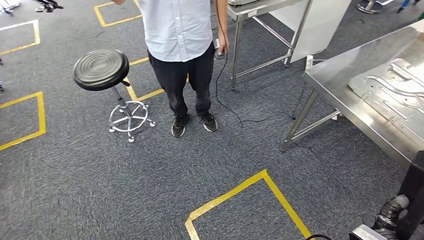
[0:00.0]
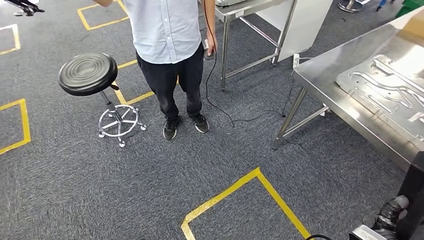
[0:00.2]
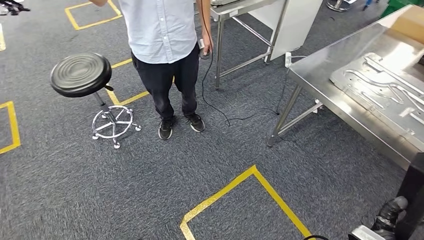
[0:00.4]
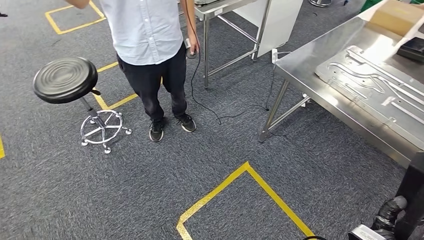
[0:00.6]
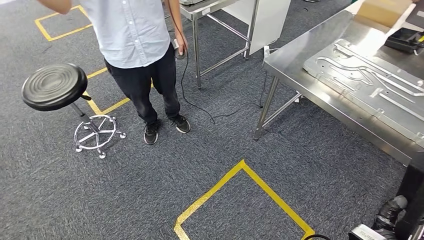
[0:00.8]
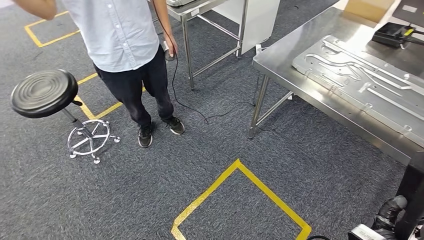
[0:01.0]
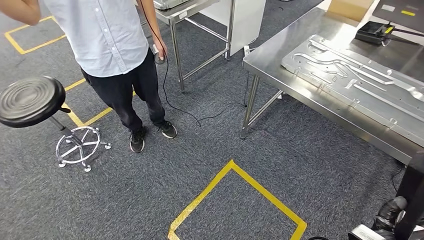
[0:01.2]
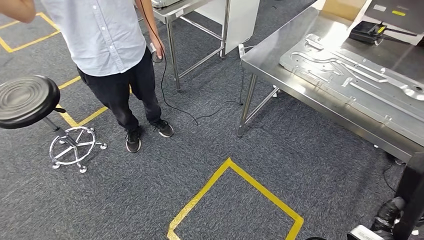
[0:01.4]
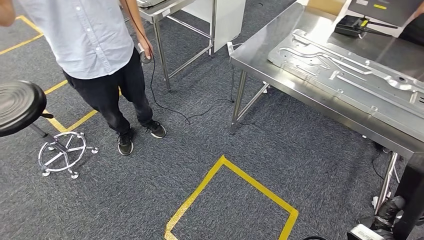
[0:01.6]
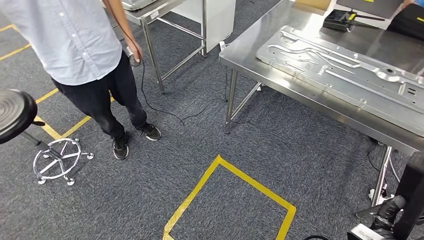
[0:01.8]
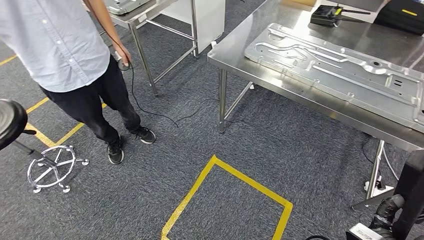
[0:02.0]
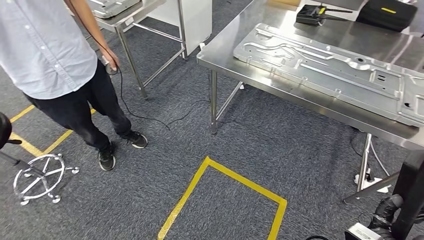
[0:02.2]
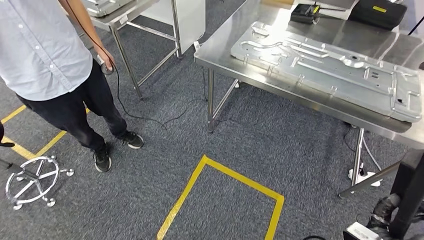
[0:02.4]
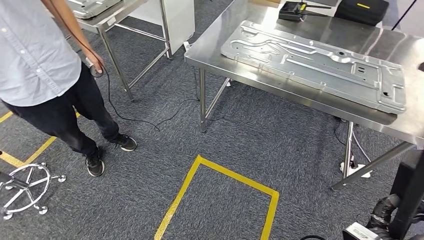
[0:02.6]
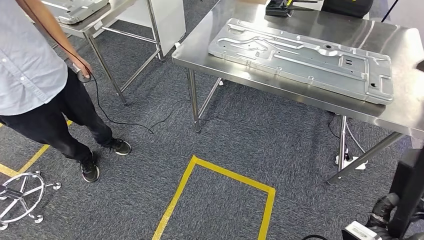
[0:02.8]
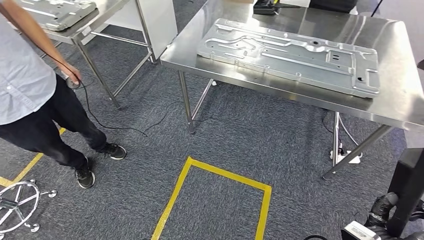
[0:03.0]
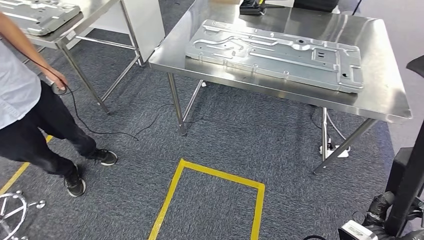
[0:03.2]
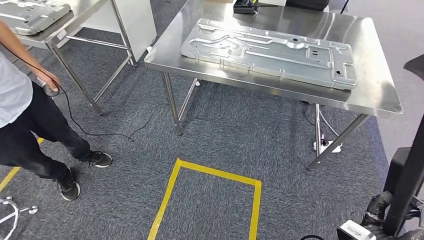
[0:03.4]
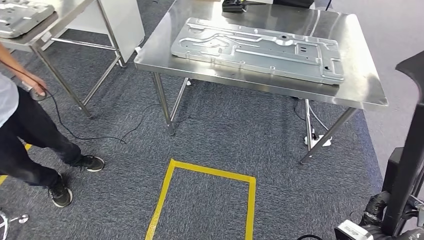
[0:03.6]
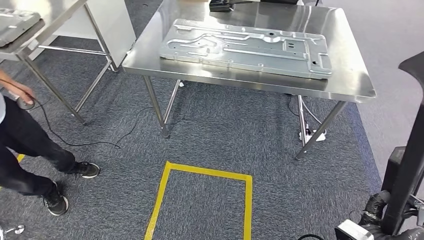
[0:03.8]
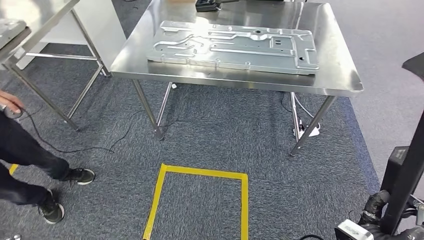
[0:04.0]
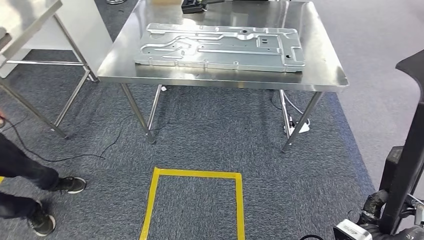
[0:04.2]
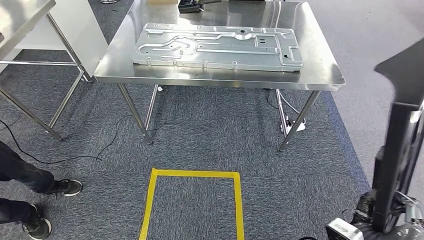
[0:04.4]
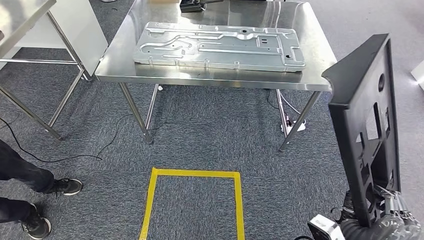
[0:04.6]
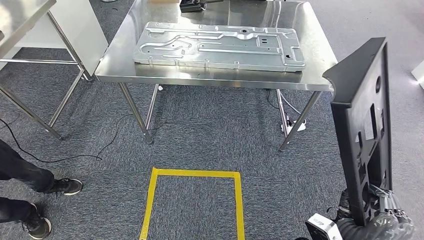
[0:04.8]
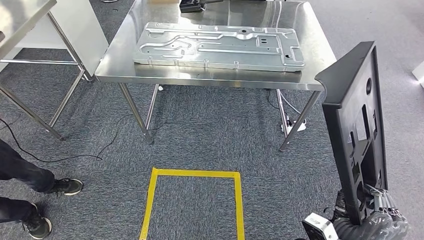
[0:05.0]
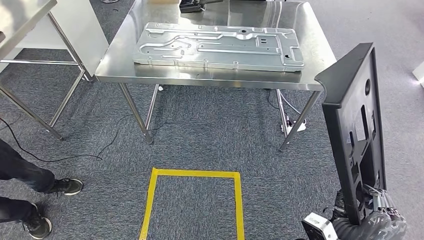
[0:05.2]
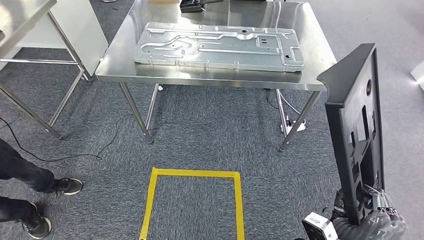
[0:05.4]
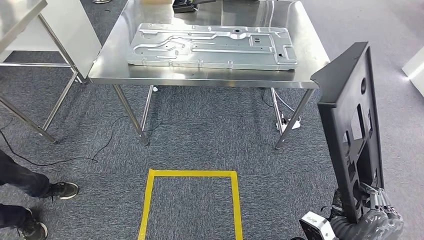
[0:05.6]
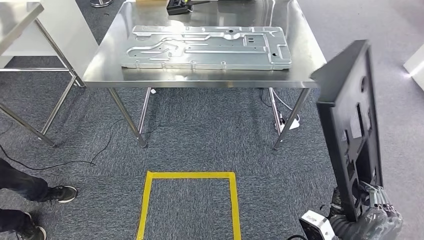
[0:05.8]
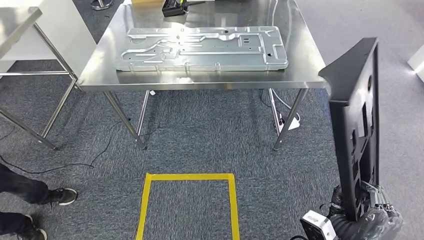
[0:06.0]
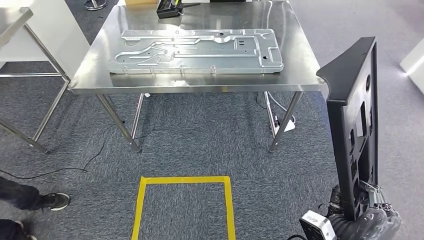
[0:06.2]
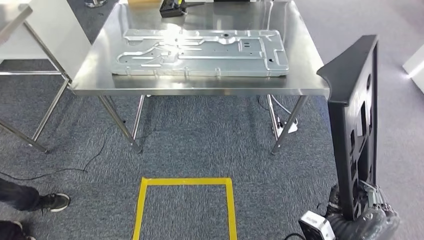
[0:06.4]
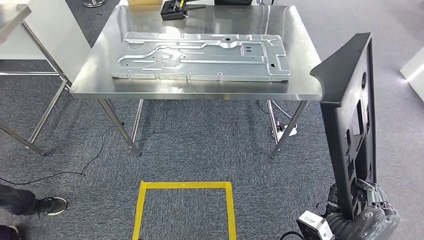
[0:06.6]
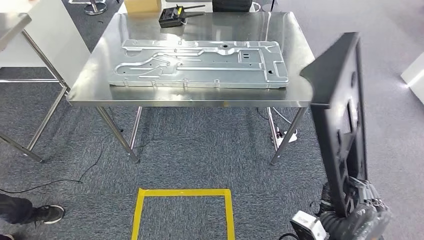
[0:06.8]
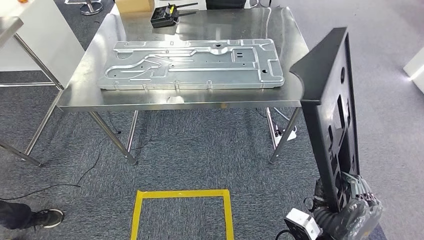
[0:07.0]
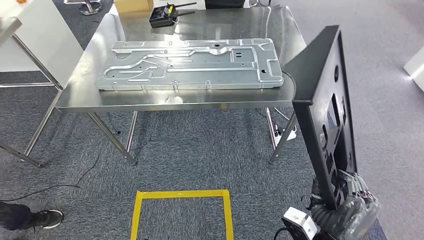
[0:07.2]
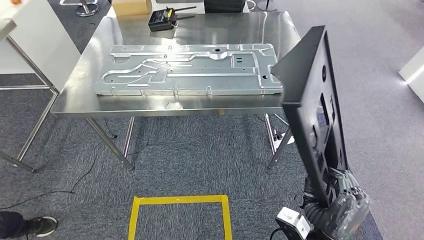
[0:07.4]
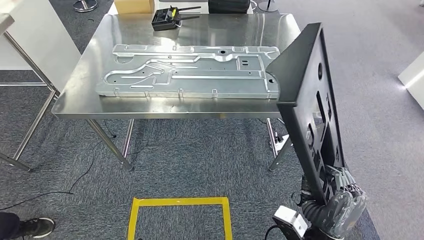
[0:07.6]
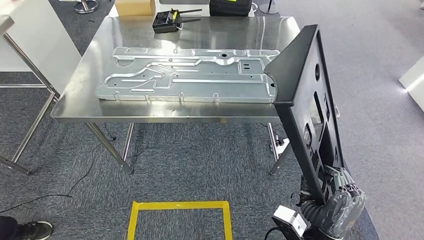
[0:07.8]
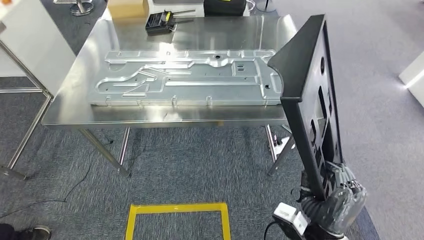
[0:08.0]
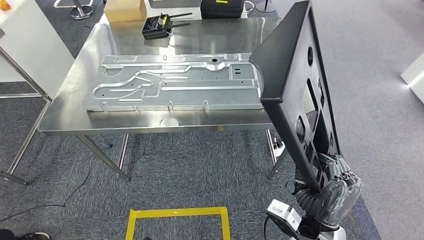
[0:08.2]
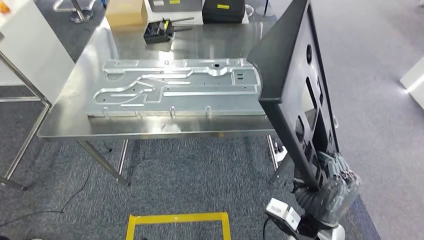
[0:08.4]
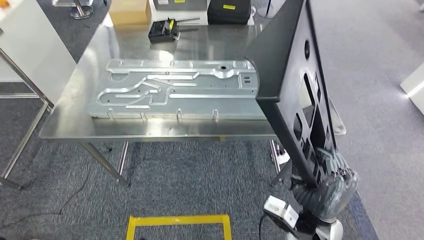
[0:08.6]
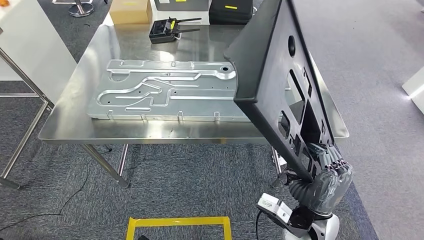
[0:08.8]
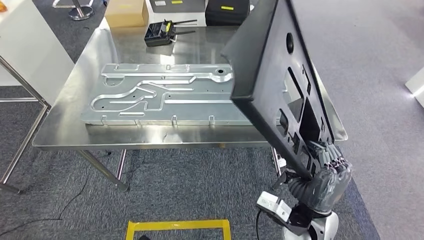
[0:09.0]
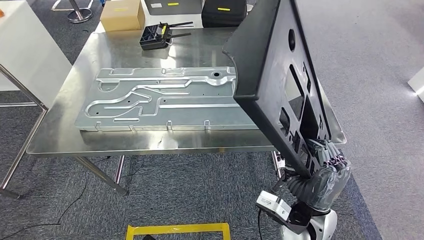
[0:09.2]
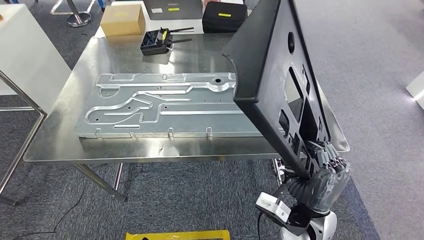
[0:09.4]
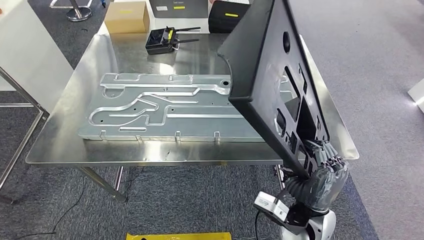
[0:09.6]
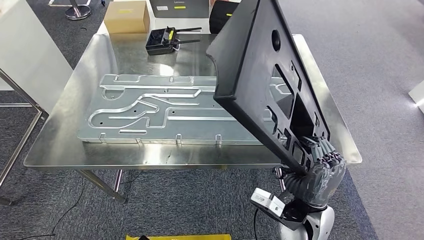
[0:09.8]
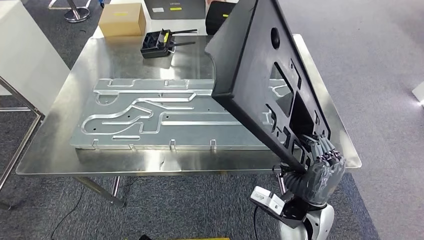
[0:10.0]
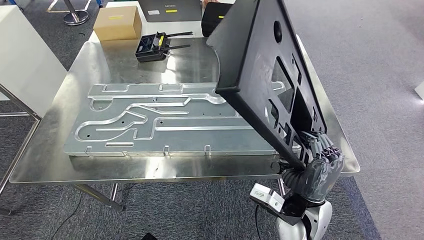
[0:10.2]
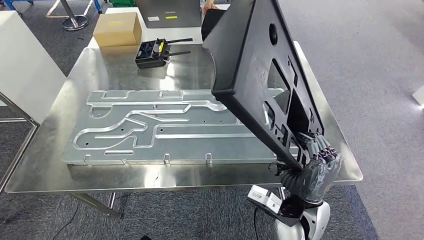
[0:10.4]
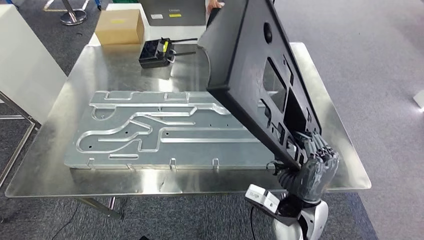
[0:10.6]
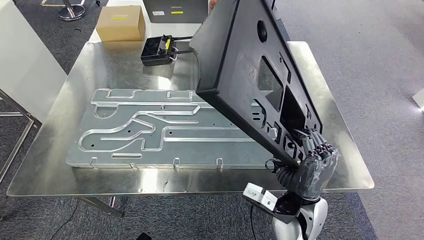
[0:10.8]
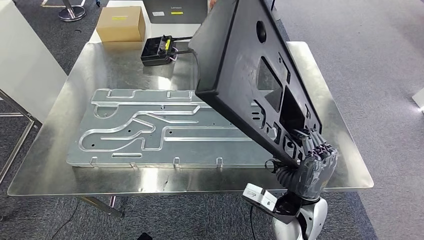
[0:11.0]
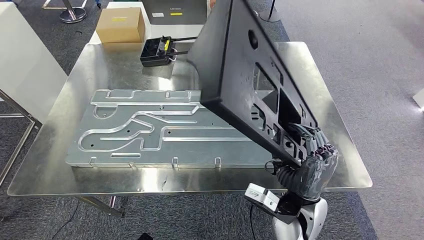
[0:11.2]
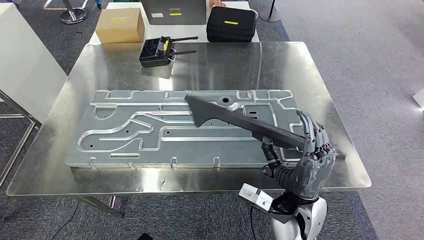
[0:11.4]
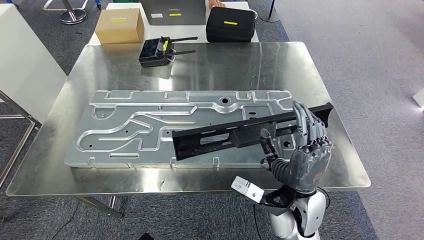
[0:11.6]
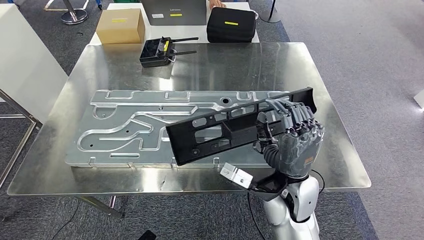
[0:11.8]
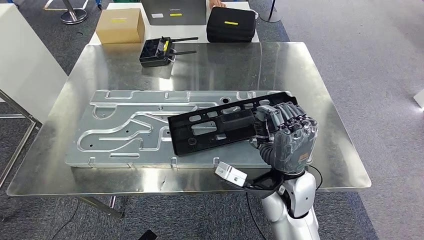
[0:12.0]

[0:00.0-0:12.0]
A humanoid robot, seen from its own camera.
Step, 0.0 to 9.8 s: Move the large parts to the workbench.

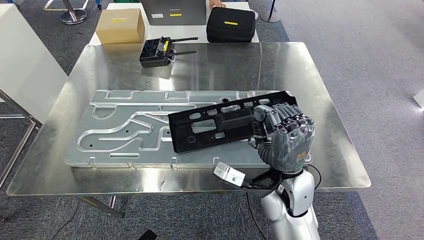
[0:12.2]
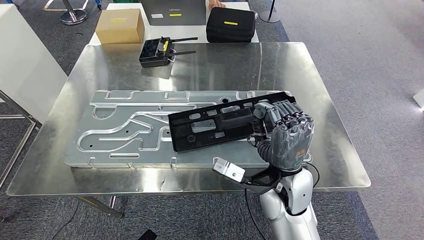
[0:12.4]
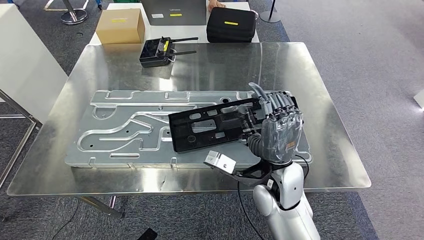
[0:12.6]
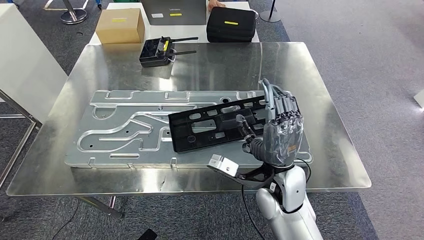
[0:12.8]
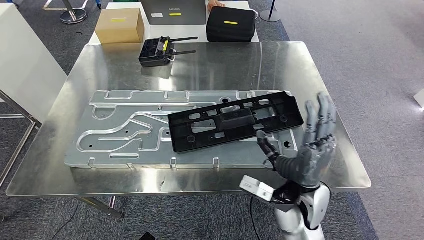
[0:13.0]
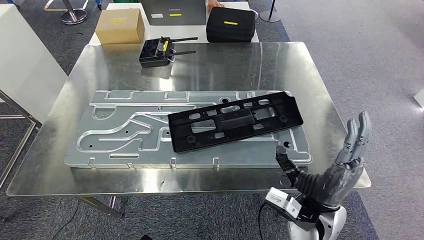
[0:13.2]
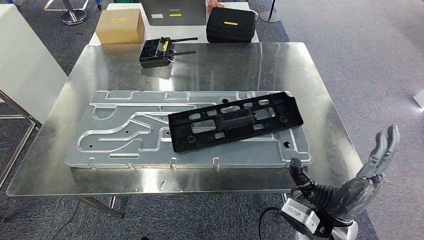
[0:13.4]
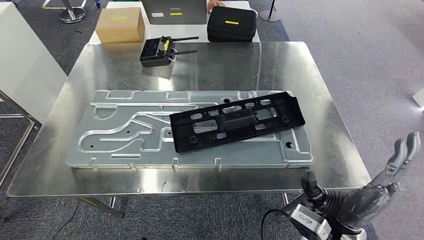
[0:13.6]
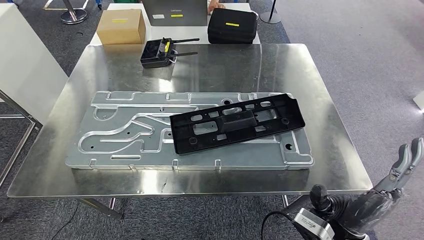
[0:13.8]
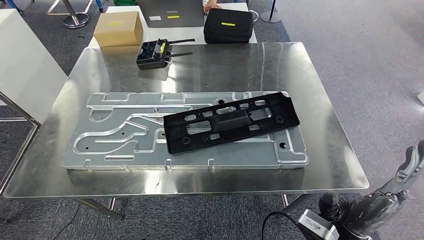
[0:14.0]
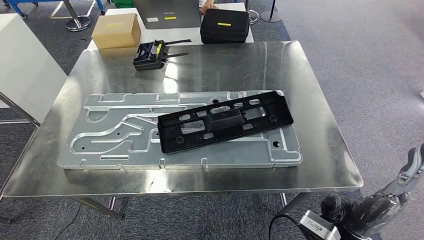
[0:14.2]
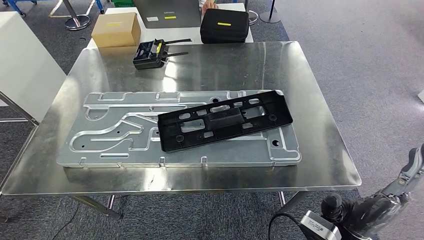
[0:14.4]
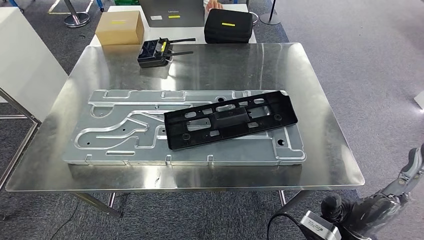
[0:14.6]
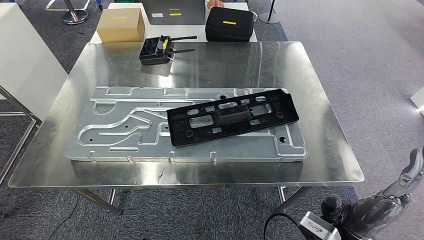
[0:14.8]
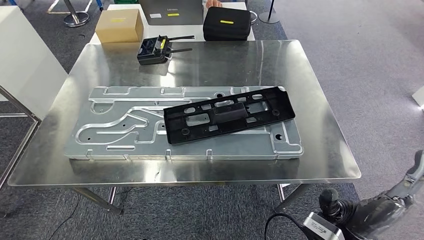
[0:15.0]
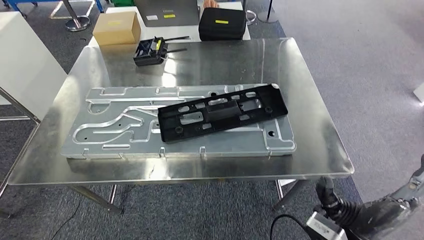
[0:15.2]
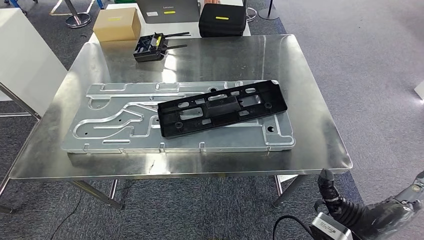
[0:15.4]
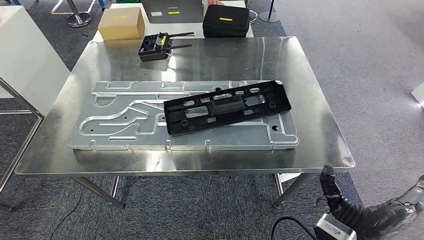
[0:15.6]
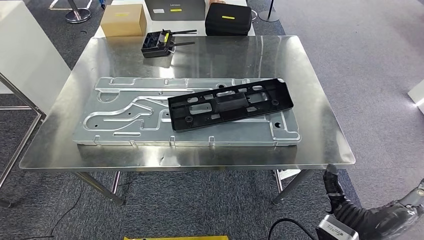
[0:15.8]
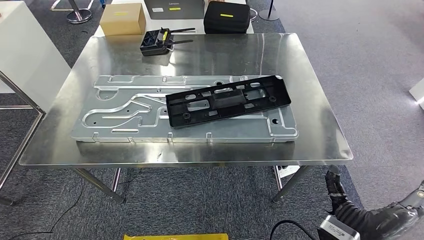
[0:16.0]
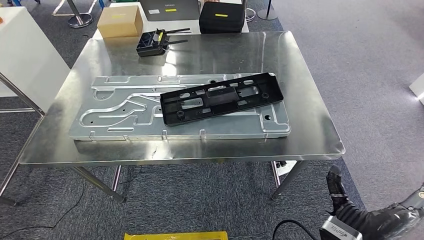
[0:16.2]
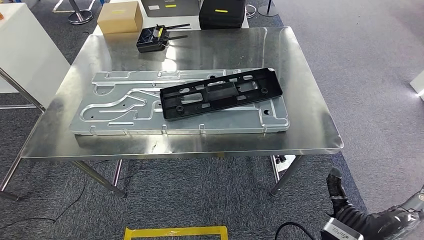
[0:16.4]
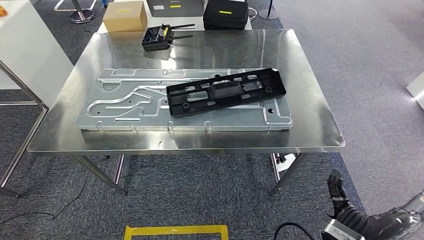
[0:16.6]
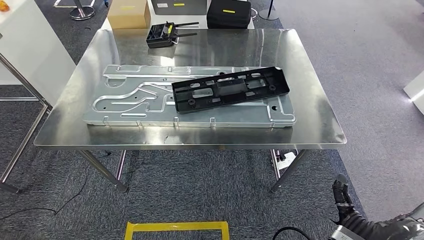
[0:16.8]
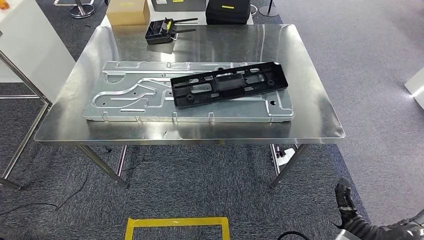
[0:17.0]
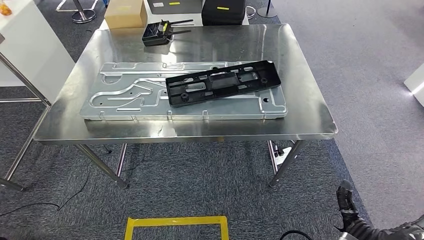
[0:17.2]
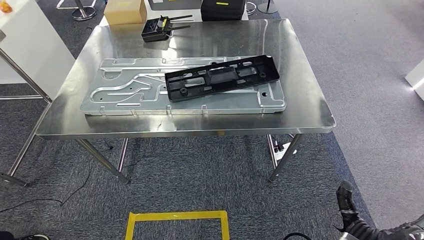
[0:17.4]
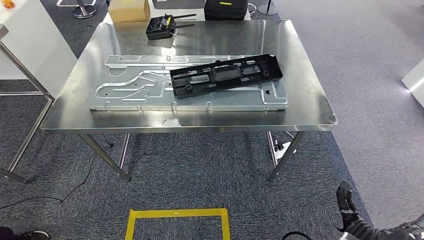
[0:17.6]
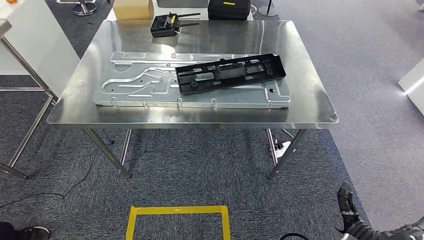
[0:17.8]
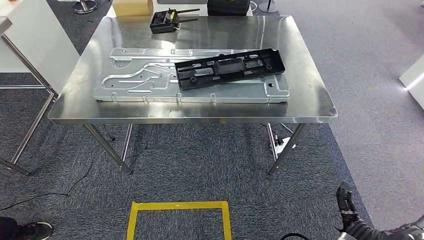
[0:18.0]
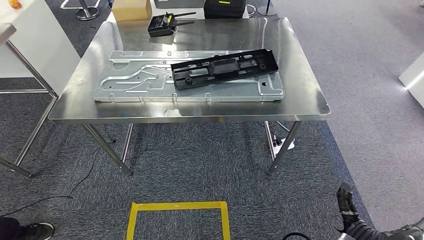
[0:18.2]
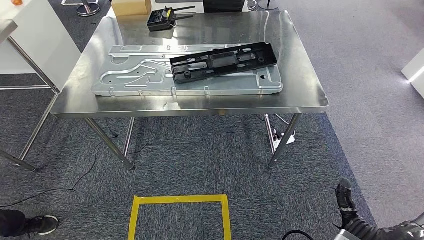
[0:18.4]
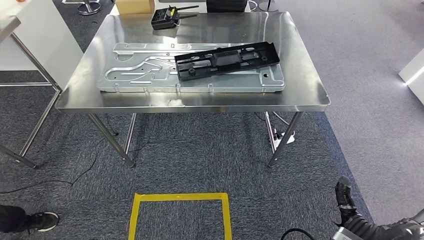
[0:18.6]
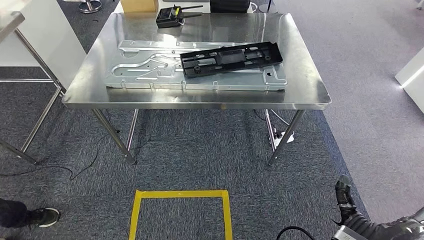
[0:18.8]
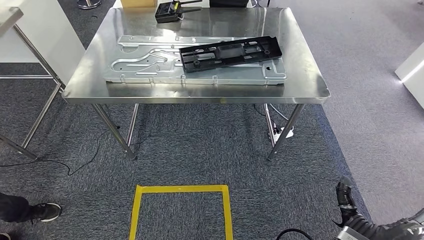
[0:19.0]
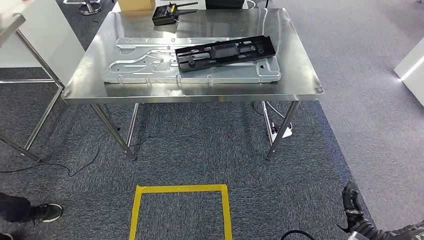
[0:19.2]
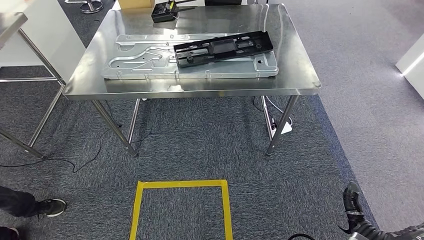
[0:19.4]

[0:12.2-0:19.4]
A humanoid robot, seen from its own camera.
Step, 12.2 to 13.8 s: Insert the large parts into the corresponding slots on the workbench.
12.2 to 13.6 s: The right hand shifts approximately 10 cm backward and to the right.
